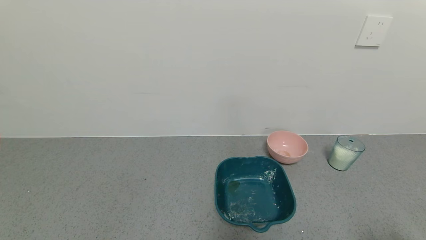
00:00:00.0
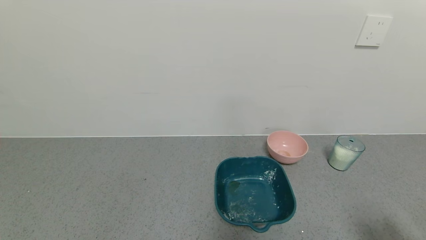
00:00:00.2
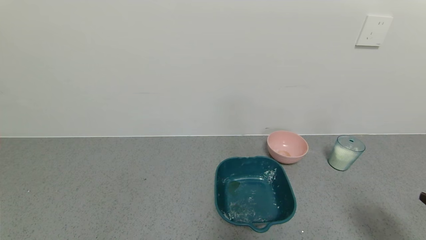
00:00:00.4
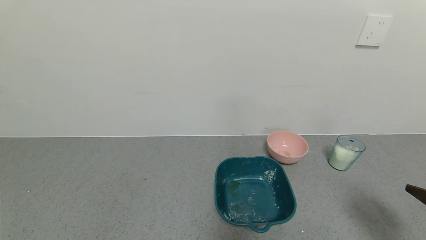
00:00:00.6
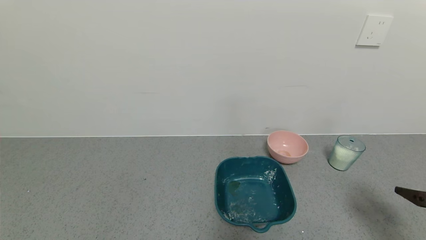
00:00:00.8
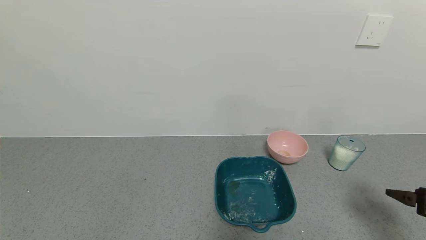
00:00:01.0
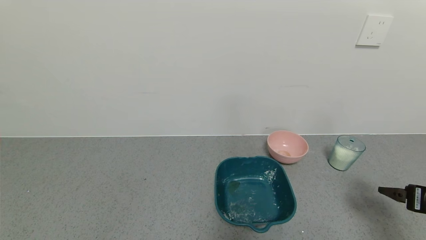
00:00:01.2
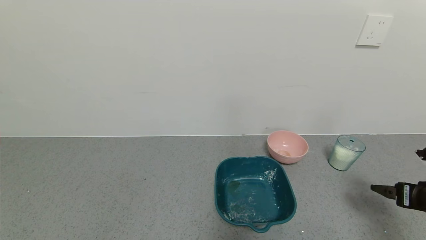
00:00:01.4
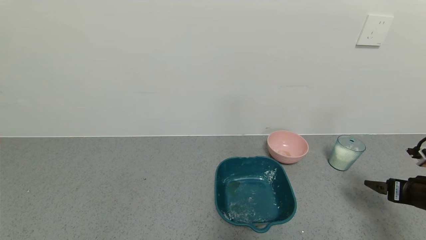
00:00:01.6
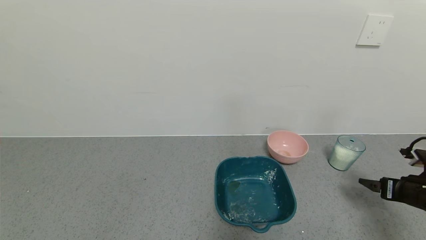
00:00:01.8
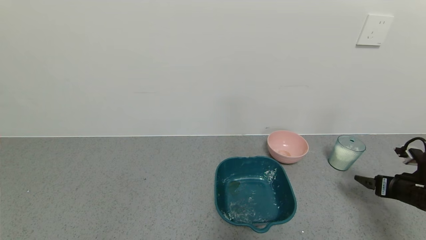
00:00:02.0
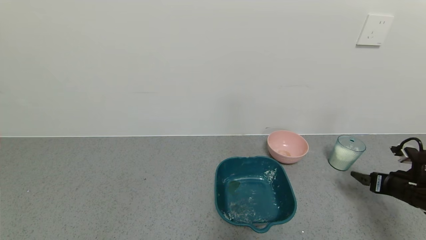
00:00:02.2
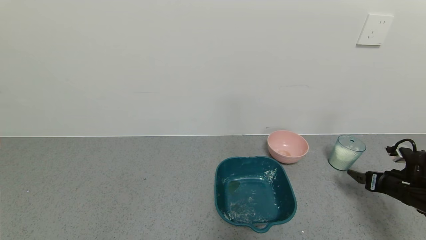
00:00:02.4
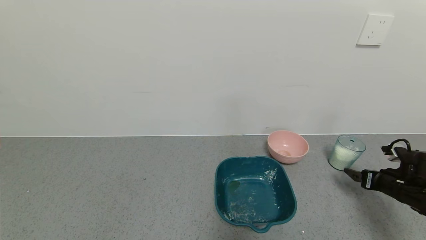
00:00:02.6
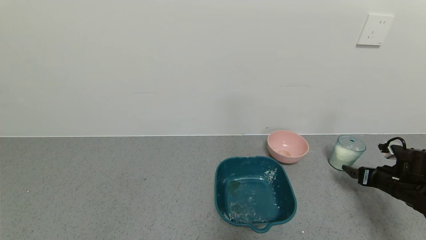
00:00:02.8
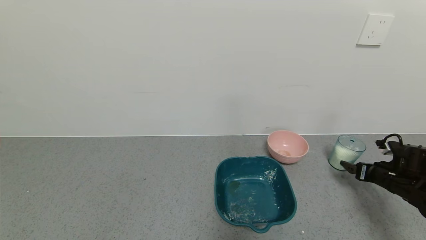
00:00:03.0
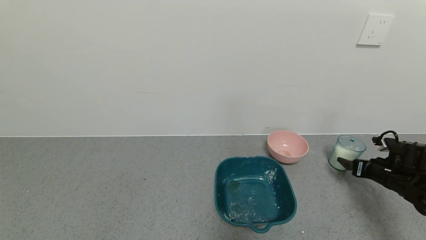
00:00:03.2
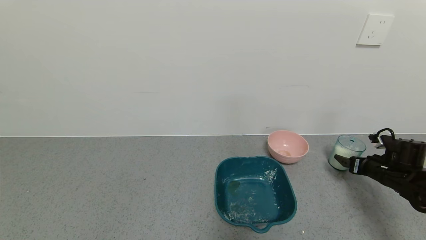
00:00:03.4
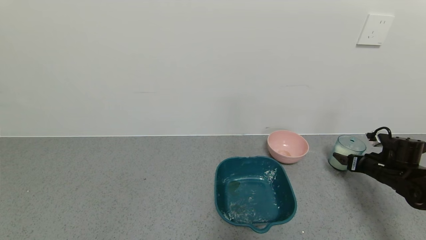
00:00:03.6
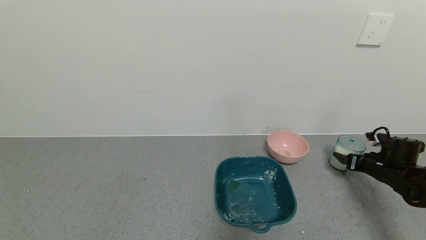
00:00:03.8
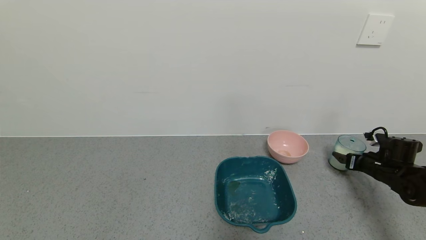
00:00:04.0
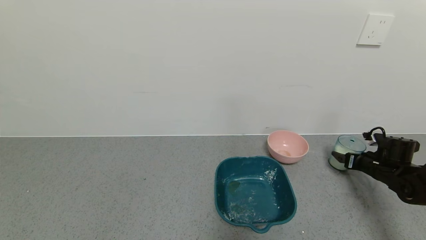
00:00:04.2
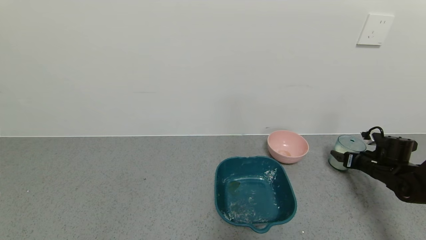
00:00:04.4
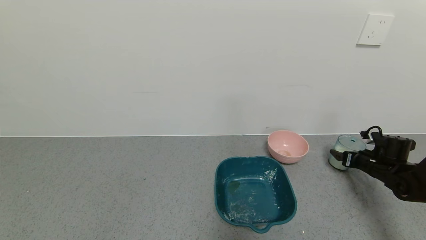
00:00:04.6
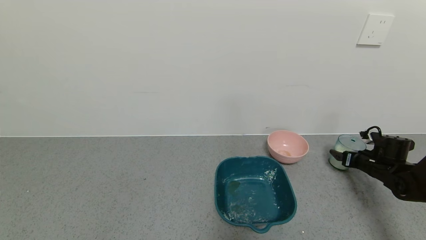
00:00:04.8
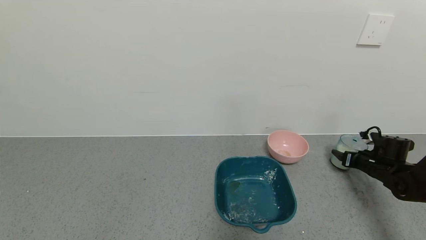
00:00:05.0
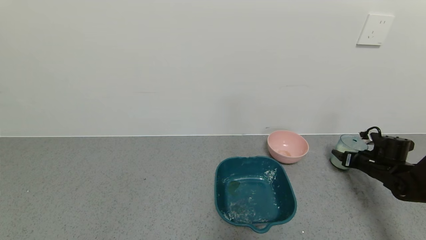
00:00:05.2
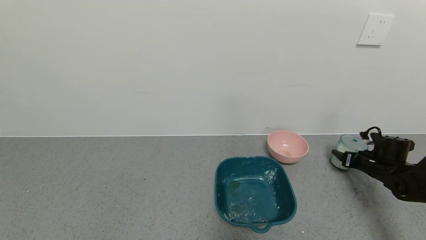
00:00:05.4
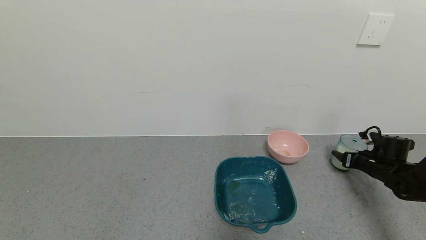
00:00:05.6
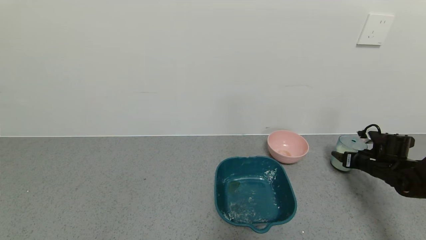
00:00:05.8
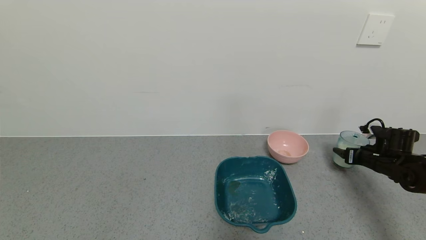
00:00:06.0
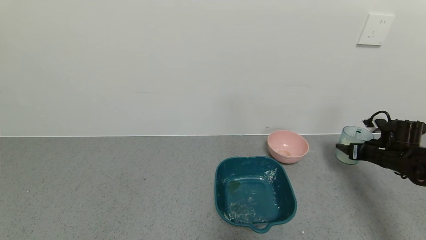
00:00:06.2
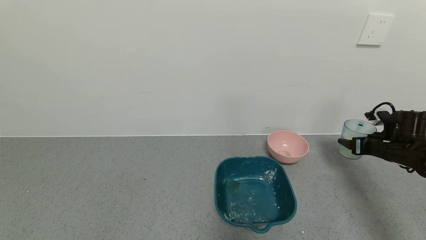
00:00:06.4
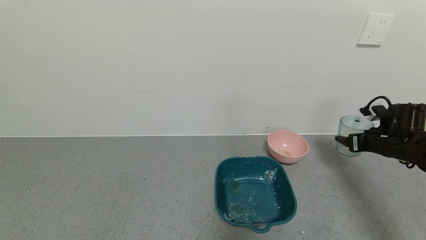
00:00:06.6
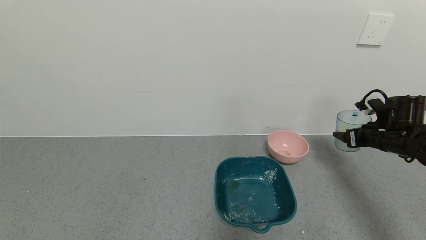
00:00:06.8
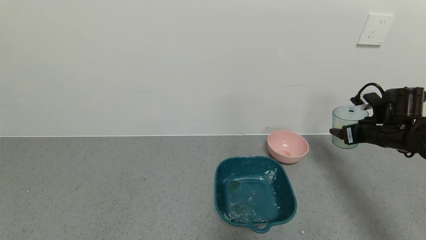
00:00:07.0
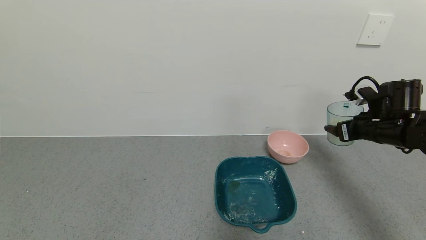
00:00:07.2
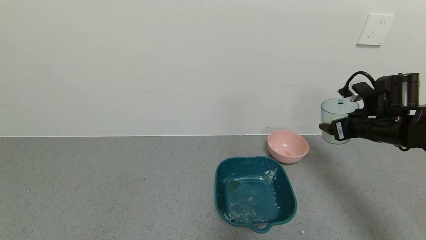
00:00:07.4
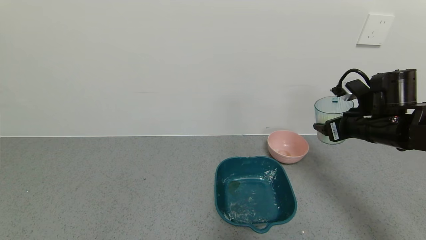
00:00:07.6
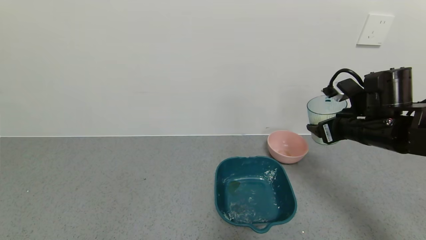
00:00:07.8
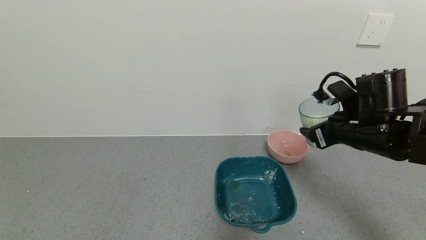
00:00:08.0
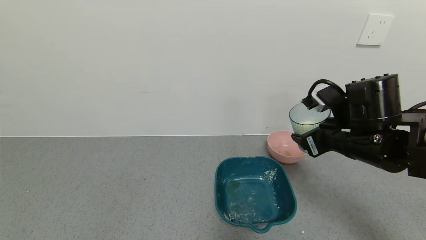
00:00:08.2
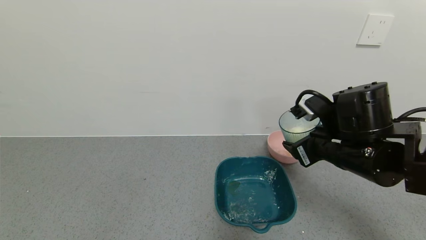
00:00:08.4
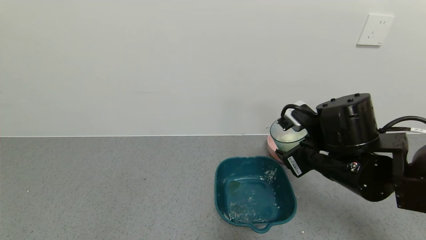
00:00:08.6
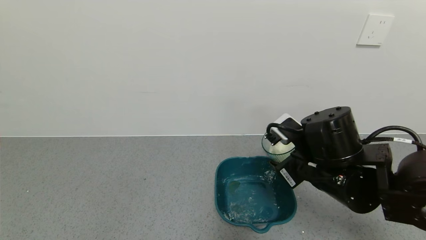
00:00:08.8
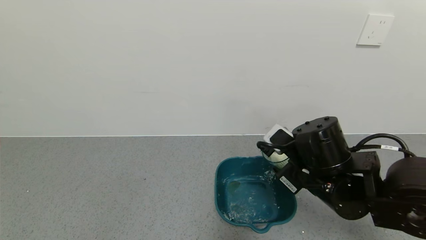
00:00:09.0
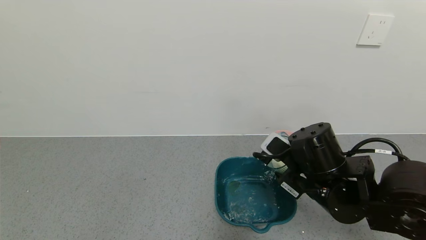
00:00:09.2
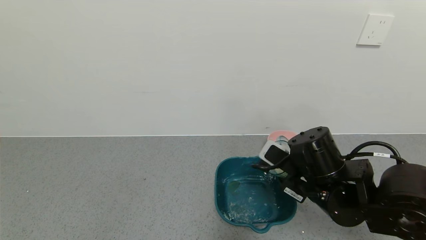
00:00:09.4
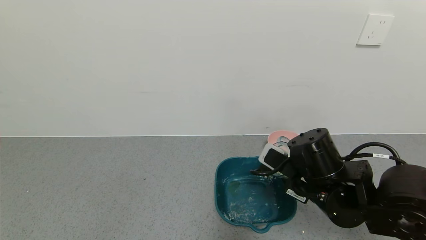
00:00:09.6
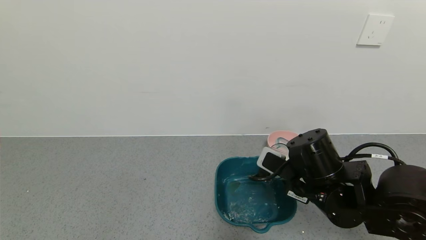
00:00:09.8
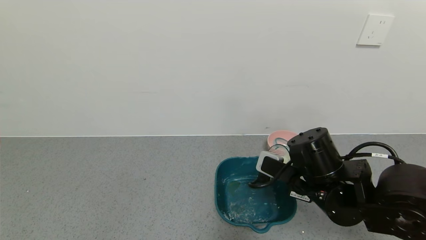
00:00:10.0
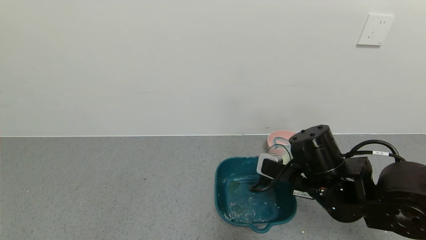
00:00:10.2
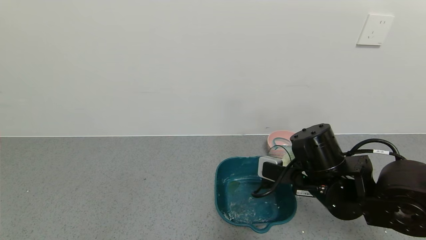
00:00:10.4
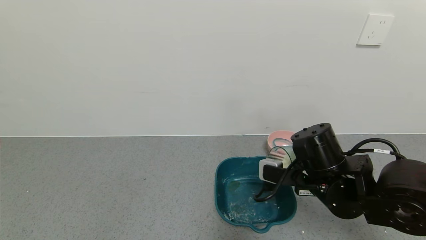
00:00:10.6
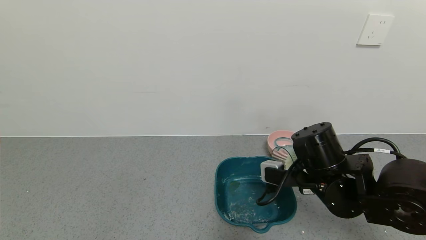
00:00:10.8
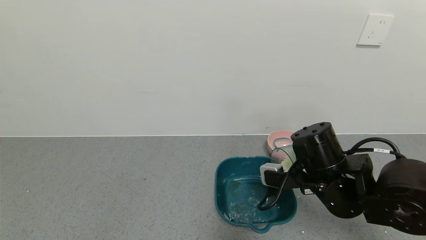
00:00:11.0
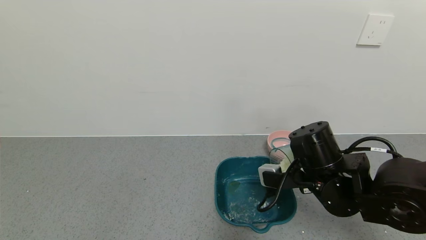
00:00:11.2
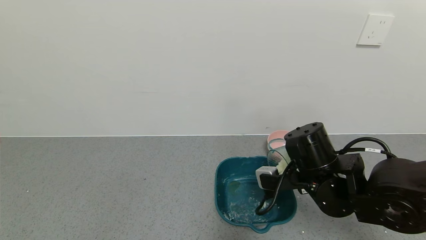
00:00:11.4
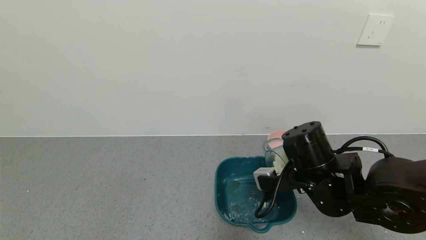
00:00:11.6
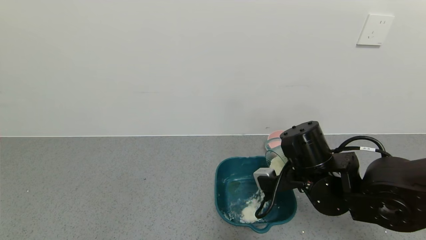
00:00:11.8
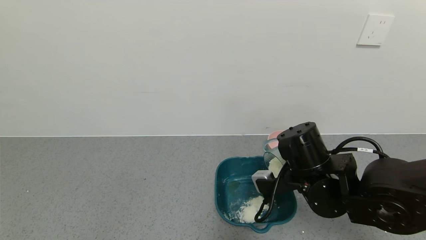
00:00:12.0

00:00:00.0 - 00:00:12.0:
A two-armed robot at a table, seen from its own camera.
Task of the whole recording: use a gripper to pick up the cup and pour the powder into a bowl or tray.
Step, 00:00:00.0 - 00:00:05.0: Grasp the glass of powder with the right gripper.
00:00:00.0 - 00:00:01.6: The right gripper travels forward by some 20 cm.
00:00:01.6 - 00:00:03.0: The right gripper is displaced forward and downward by approximately 10 cm.
00:00:03.0 - 00:00:04.4: The right gripper is displaced forward by roughly 5 cm.
00:00:04.4 - 00:00:06.0: The right gripper closes up.
00:00:06.0 - 00:00:07.6: The right gripper travels upward and to the left by approximately 20 cm.
00:00:07.6 - 00:00:09.0: The right gripper moves to the left and backward, approximately 15 cm.

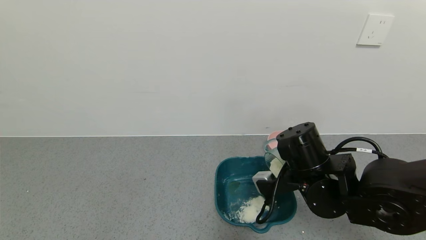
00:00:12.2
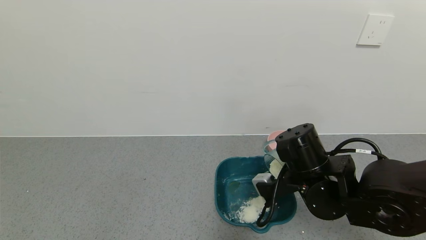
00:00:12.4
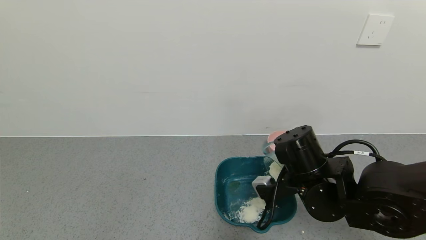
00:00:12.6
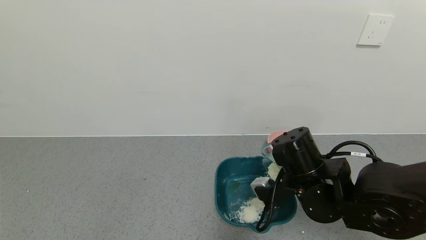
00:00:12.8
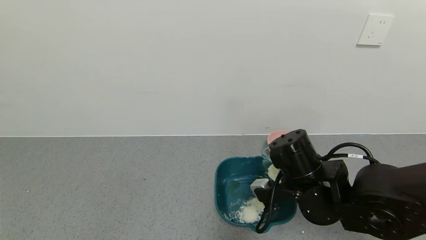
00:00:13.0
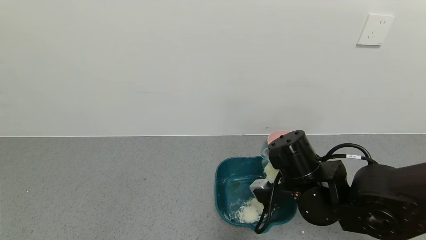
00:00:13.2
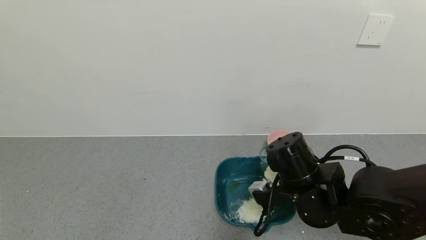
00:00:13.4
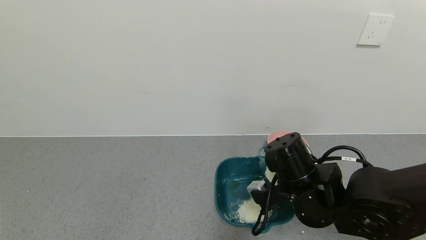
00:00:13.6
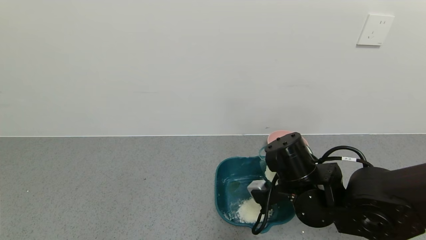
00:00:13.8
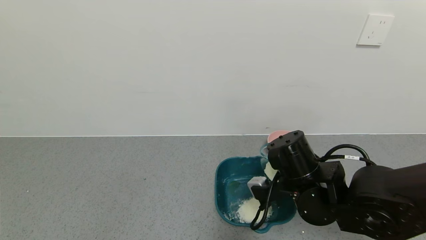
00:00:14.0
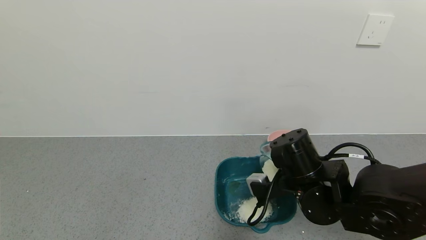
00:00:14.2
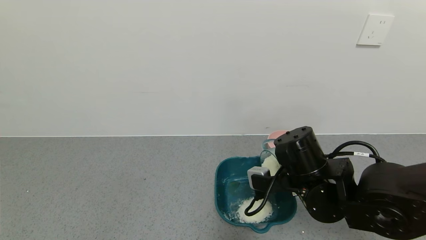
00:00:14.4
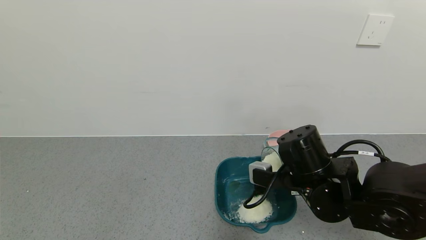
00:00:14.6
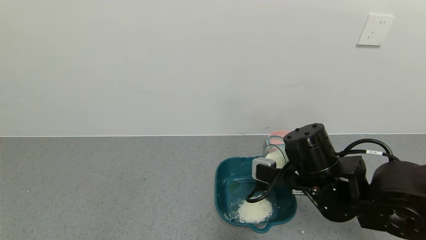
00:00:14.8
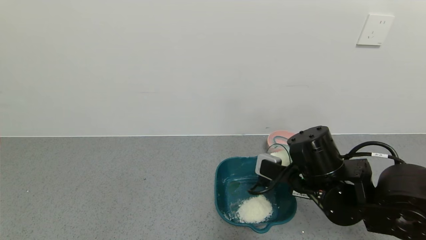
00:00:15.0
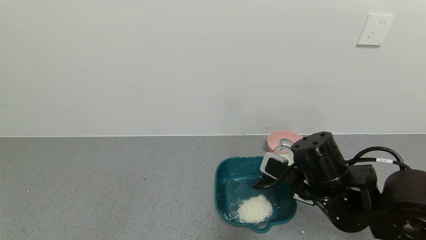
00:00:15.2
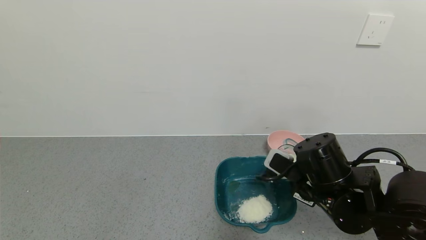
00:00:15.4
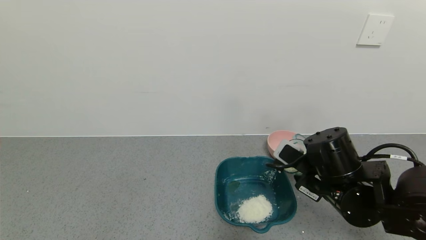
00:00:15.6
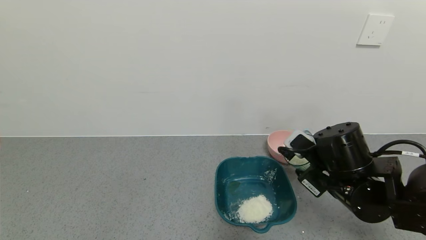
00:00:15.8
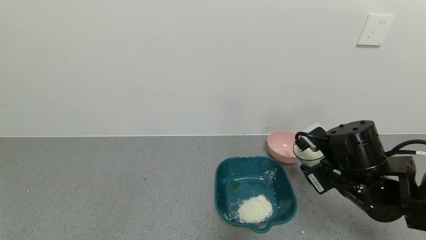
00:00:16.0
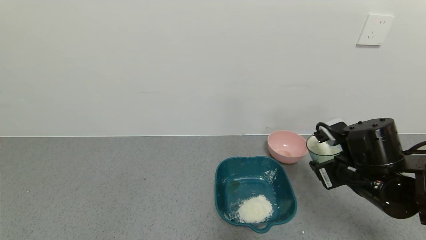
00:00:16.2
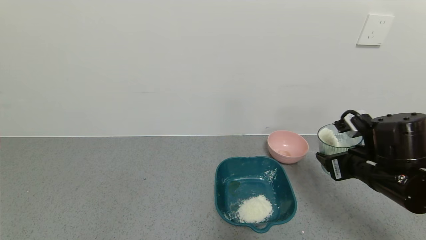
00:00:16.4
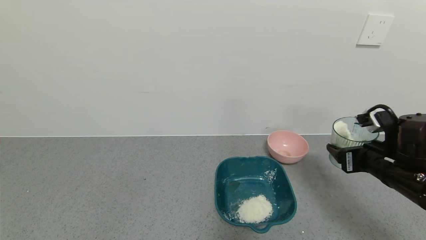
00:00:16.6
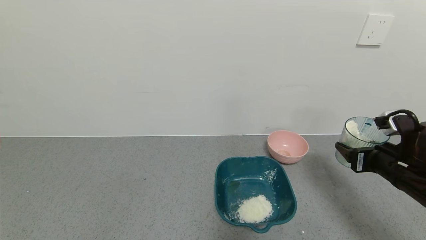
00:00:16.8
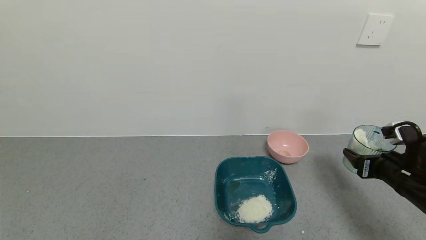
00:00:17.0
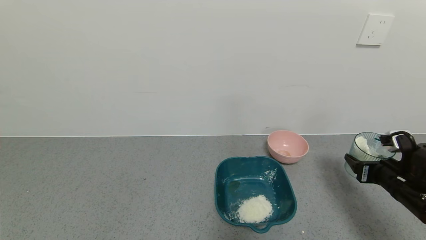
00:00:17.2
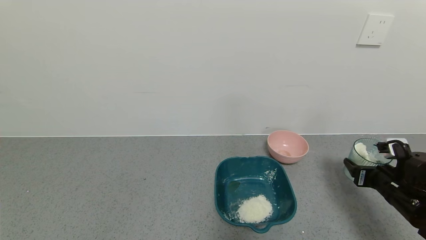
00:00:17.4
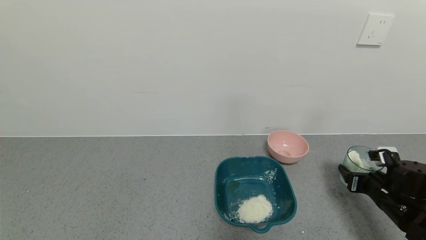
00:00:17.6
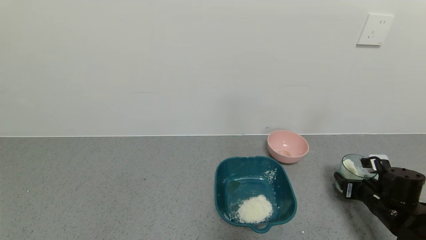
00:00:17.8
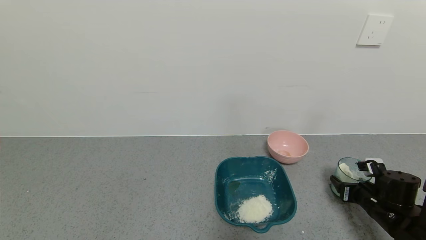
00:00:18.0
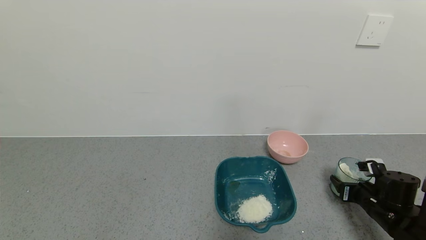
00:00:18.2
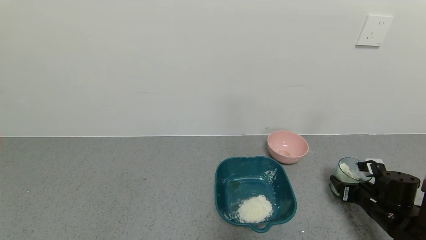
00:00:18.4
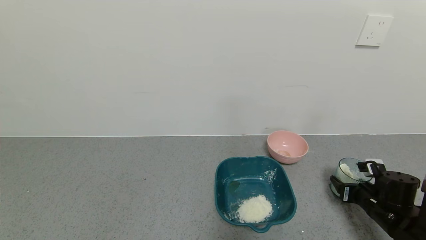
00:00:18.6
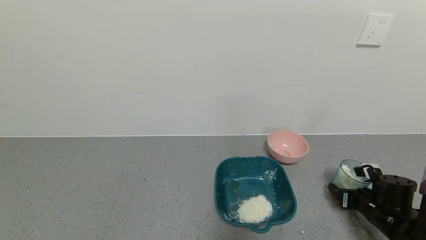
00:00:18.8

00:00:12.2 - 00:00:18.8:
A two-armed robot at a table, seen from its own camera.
Task of the whole recording: use a gripper to pick up the cup and pour the powder into a bowl or tray.
Step, 00:00:12.2 - 00:00:14.4: Pour the powder into the pink bowl with the right gripper.
00:00:12.2 - 00:00:13.8: The grippers move only a little.
00:00:15.4 - 00:00:17.2: The right gripper goes about 20 cm to the right.
00:00:17.2 - 00:00:18.8: The right gripper moves downward, about 10 cm, and opens.
